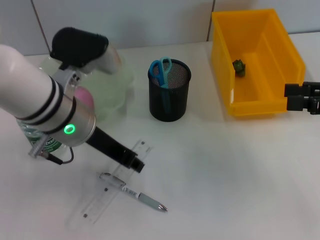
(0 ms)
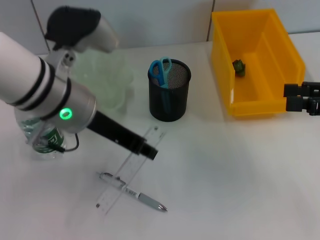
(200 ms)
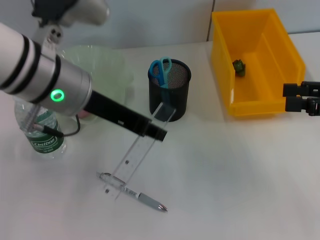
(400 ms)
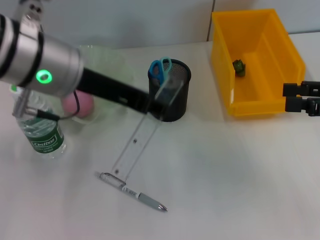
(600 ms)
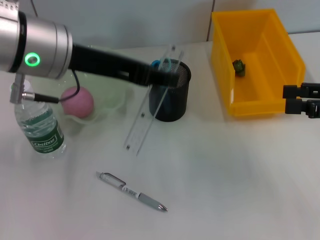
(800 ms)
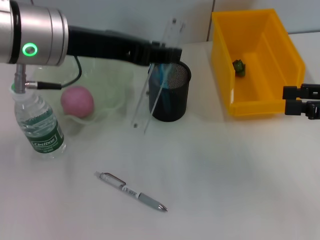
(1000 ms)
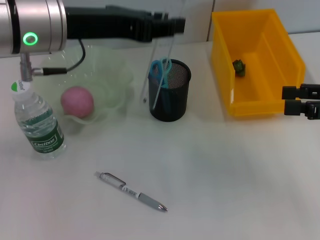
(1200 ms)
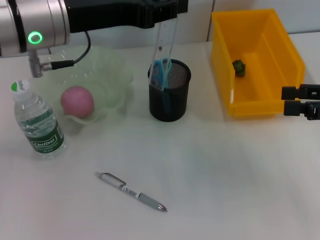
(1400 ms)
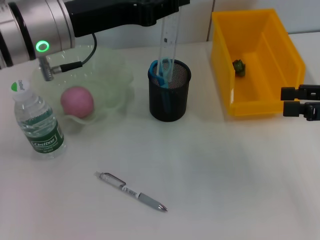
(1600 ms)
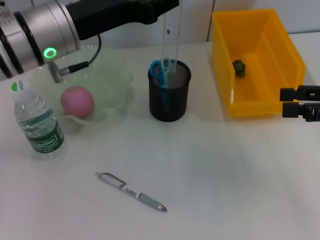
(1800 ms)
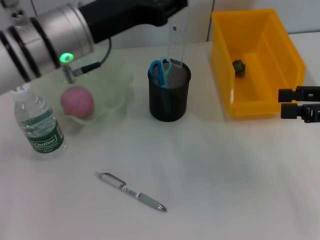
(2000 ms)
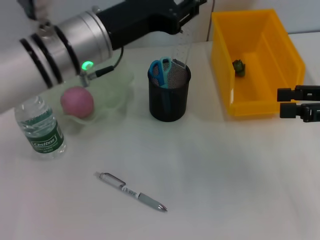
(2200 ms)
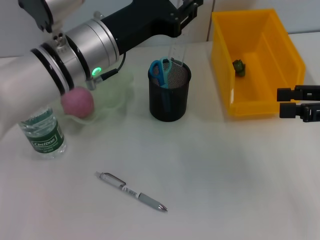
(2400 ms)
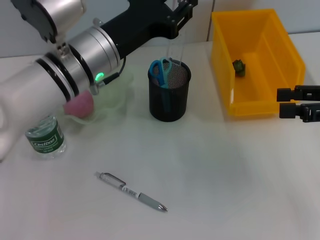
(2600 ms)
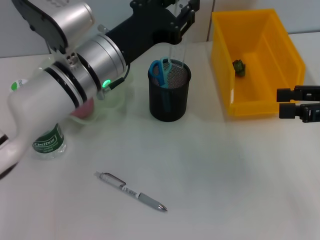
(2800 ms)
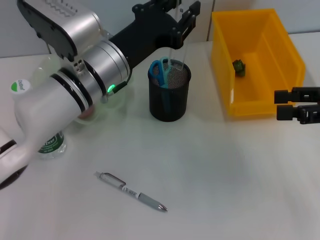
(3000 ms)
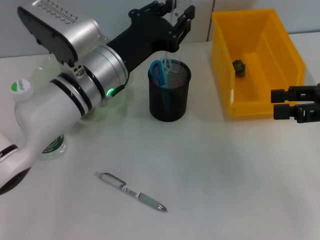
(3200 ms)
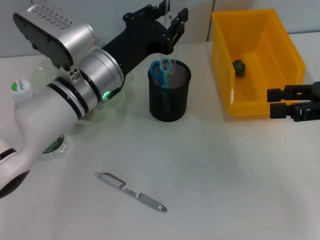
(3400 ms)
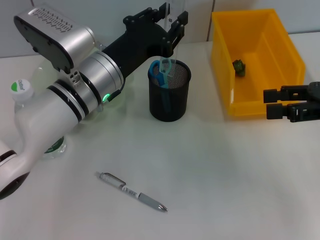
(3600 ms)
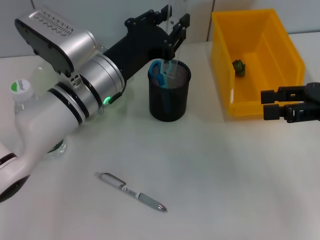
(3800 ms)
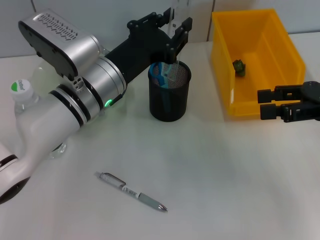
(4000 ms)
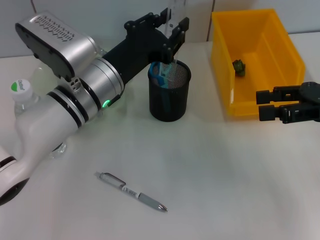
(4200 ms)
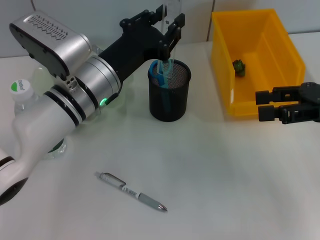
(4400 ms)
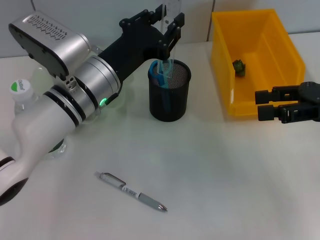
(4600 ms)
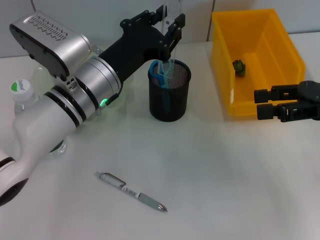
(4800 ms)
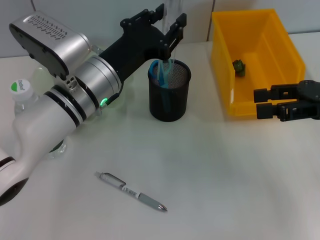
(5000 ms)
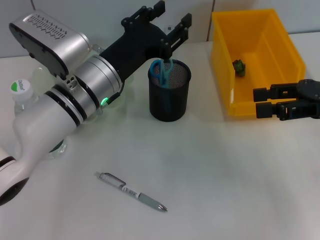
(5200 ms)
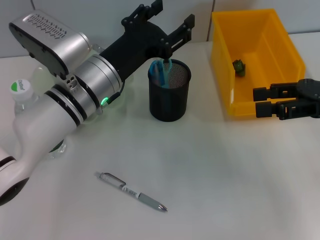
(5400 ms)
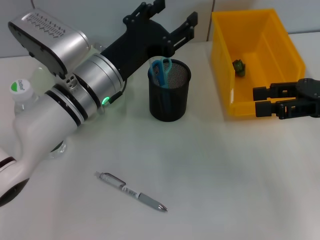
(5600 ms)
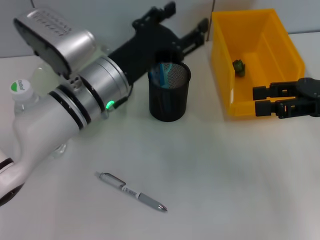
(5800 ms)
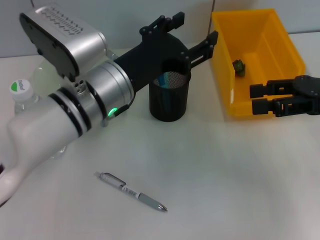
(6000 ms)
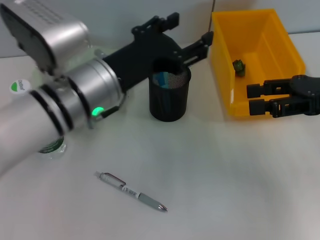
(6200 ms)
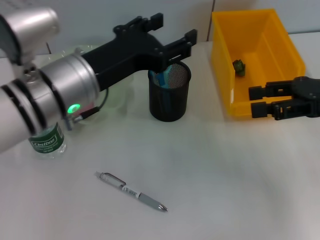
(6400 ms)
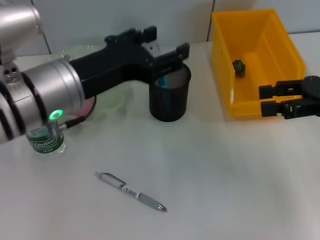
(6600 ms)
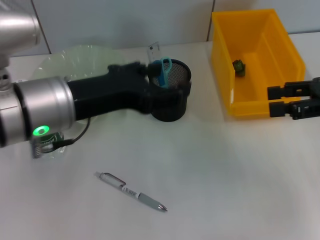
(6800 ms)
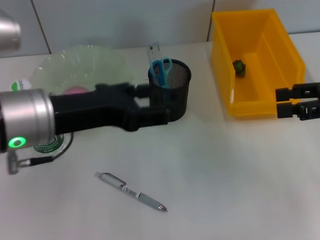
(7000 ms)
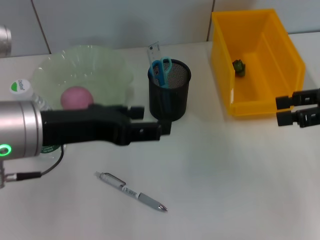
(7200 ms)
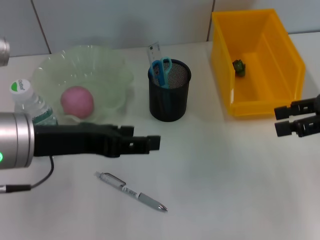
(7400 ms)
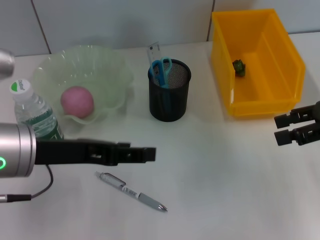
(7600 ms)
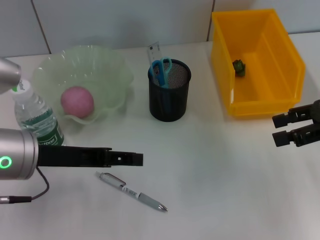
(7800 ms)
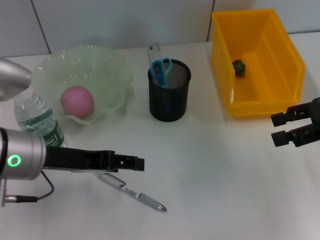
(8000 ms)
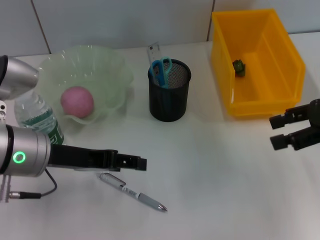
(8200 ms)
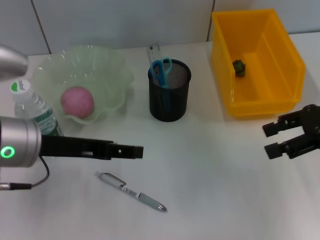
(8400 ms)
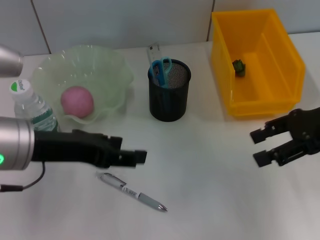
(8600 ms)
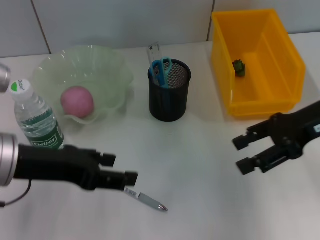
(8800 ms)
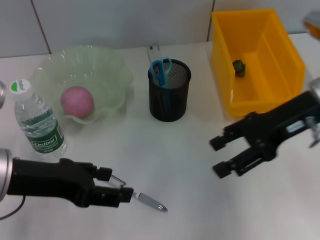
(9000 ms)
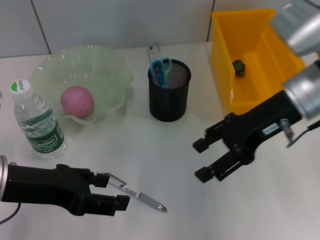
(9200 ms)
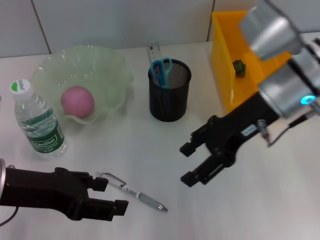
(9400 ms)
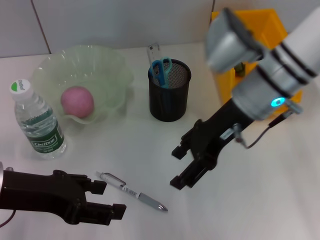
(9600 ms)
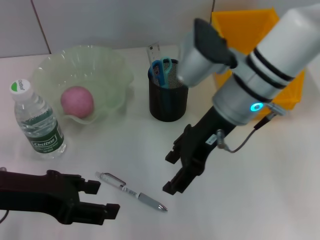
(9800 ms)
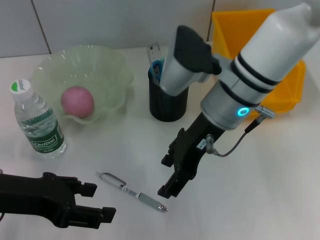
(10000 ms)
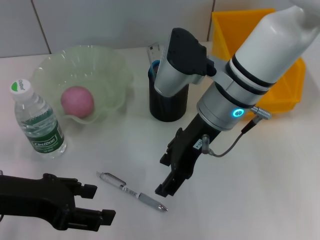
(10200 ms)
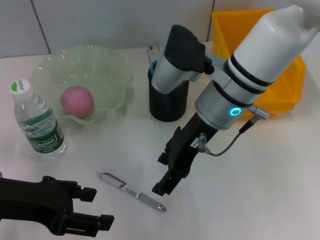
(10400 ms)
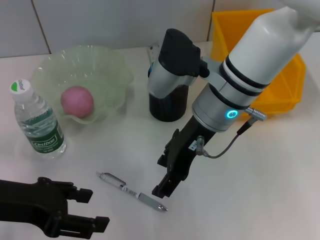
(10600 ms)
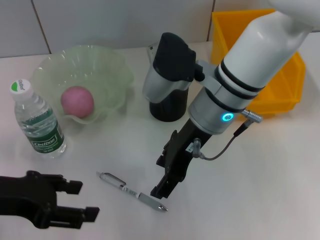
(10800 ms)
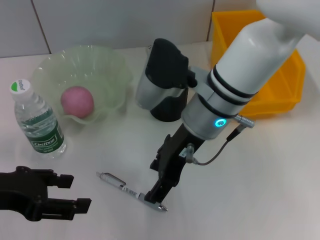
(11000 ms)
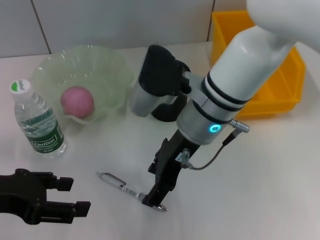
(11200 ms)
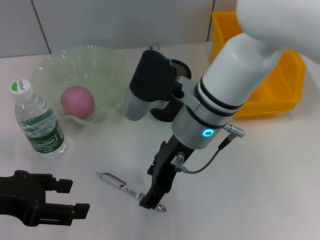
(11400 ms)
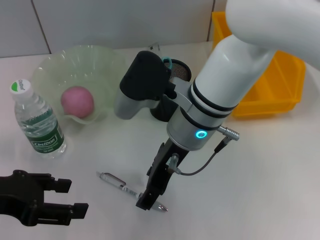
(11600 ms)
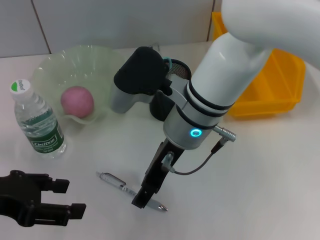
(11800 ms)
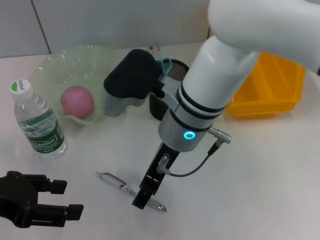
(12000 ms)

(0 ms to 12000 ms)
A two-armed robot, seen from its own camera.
Step, 0 ms - 5000 ms: Place the ruler into the pen holder with the left hand.
0 ms - 1600 ms: The left gripper is displaced upward by approximately 5 cm.
1600 ms - 3000 ms: The left gripper moves downward and to the right, some 10 cm.
3000 ms - 4400 ms: The grippers stay close to where they were, moving slightly.
4400 ms - 6000 ms: The left gripper opens up.
6000 ms - 7600 ms: The left gripper moves to the left and backward, roughly 10 cm.
7600 ms - 9000 ms: The right gripper heads to the left, covering some 10 cm.
9000 ms - 10400 ms: The right gripper moves to the left, about 15 cm.
10400 ms - 12000 ms: The right gripper moves to the left, some 5 cm.

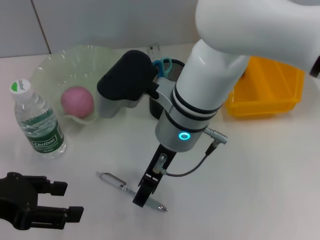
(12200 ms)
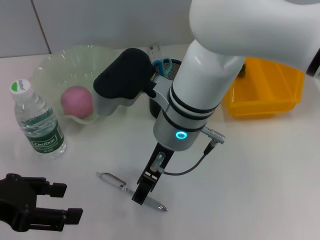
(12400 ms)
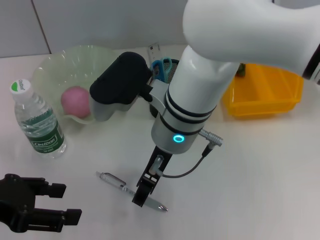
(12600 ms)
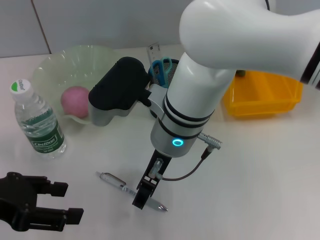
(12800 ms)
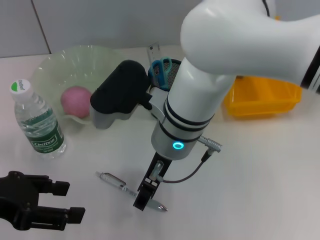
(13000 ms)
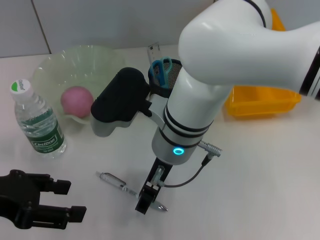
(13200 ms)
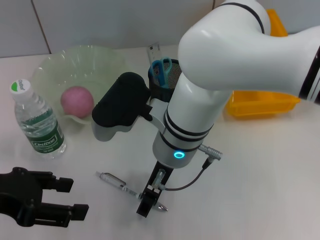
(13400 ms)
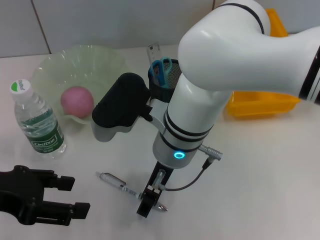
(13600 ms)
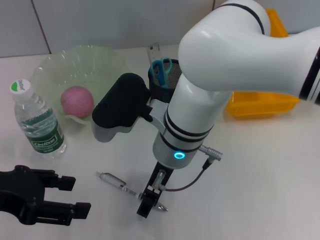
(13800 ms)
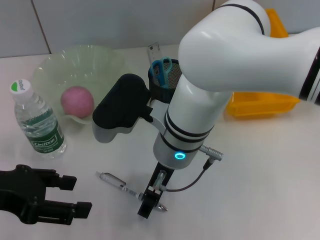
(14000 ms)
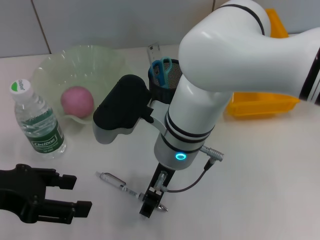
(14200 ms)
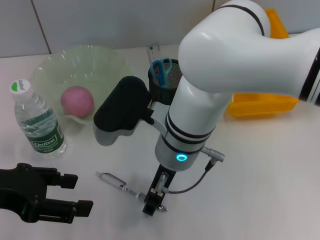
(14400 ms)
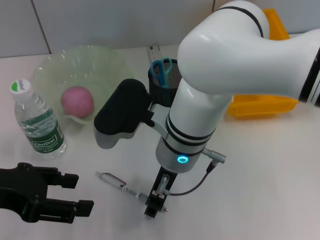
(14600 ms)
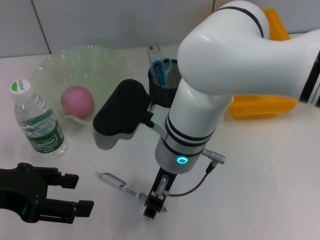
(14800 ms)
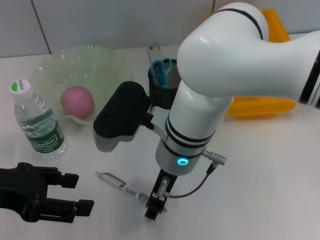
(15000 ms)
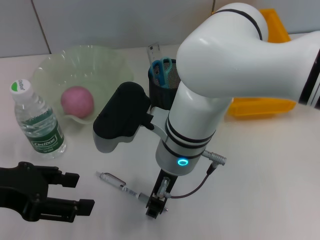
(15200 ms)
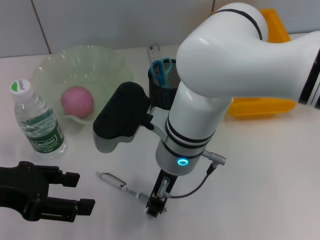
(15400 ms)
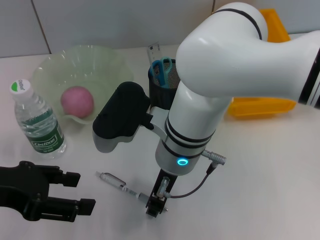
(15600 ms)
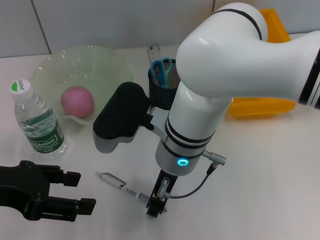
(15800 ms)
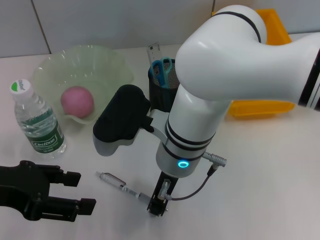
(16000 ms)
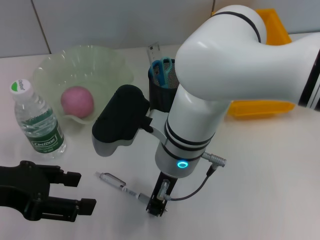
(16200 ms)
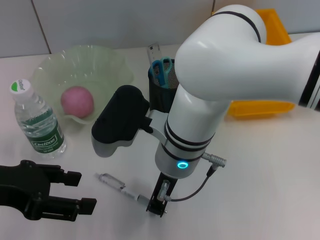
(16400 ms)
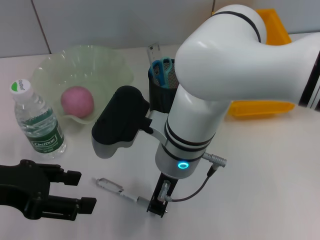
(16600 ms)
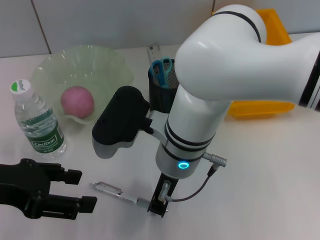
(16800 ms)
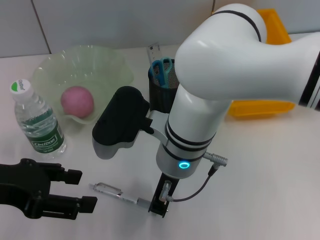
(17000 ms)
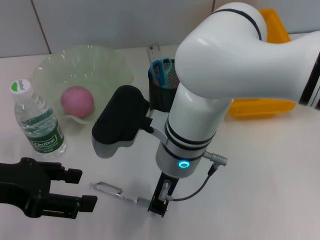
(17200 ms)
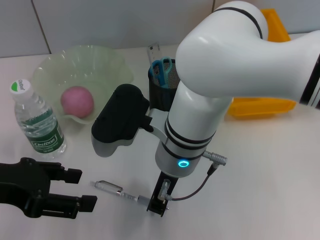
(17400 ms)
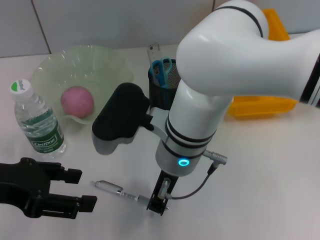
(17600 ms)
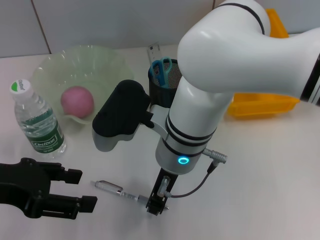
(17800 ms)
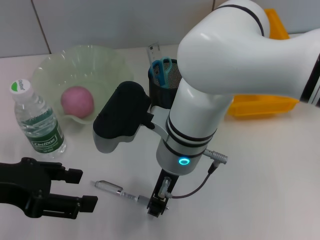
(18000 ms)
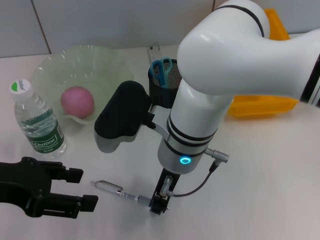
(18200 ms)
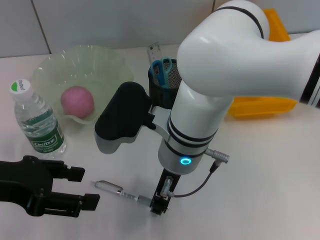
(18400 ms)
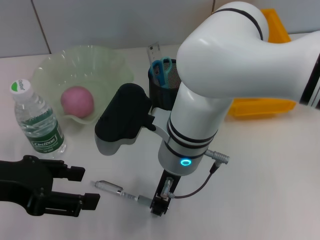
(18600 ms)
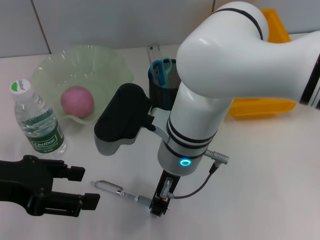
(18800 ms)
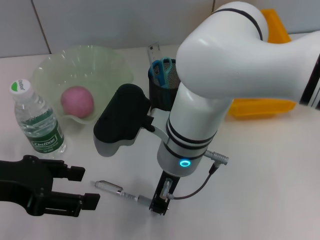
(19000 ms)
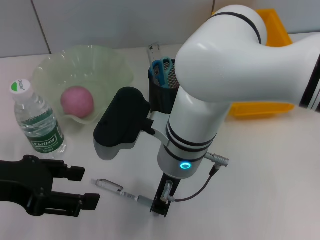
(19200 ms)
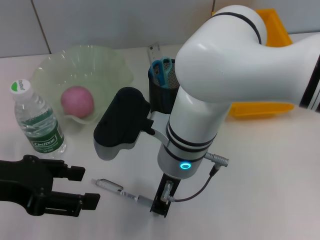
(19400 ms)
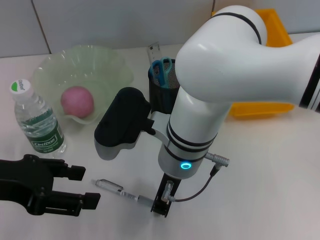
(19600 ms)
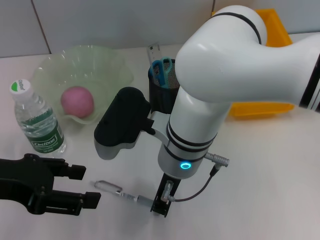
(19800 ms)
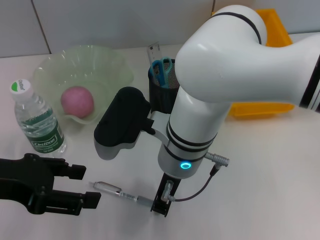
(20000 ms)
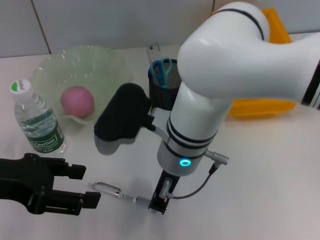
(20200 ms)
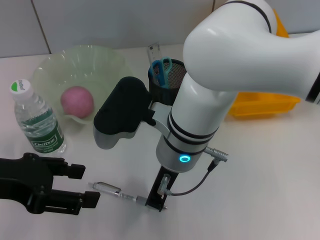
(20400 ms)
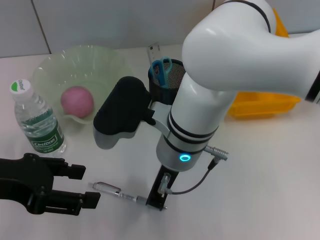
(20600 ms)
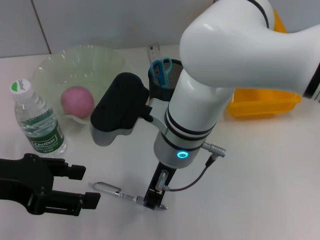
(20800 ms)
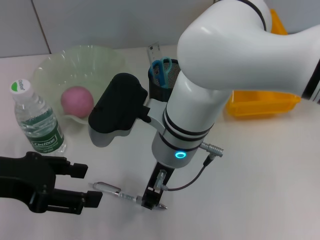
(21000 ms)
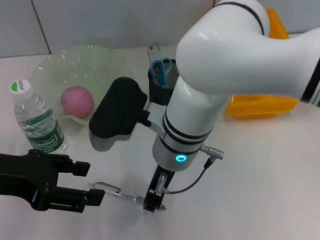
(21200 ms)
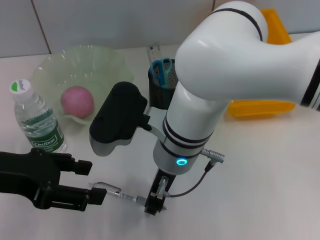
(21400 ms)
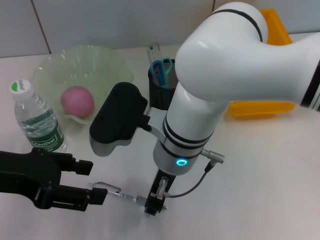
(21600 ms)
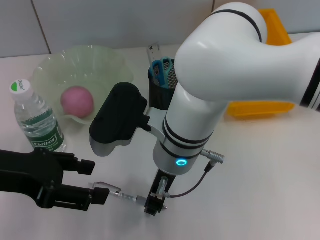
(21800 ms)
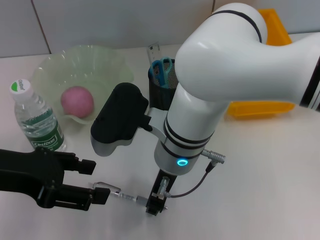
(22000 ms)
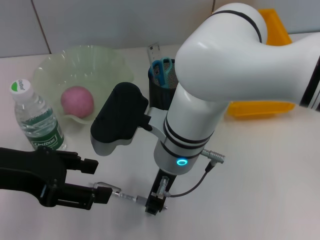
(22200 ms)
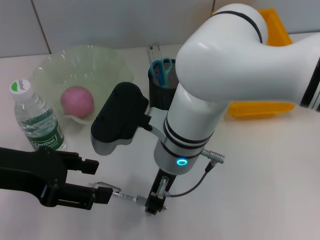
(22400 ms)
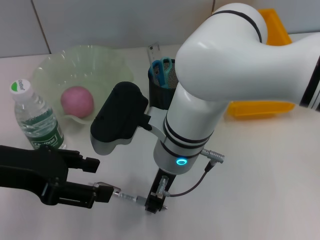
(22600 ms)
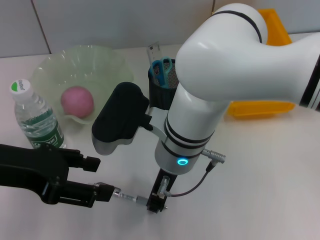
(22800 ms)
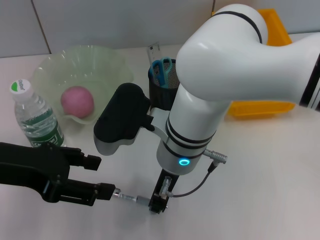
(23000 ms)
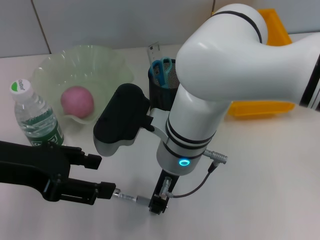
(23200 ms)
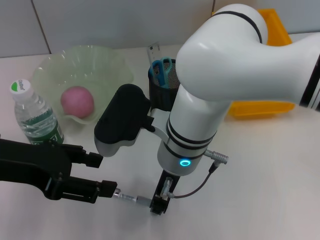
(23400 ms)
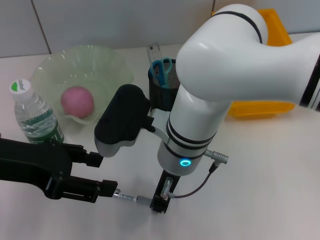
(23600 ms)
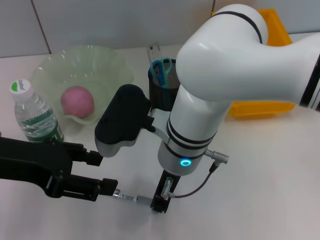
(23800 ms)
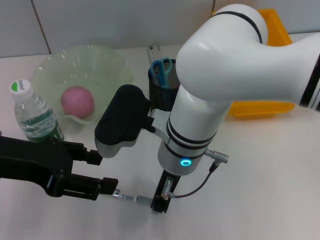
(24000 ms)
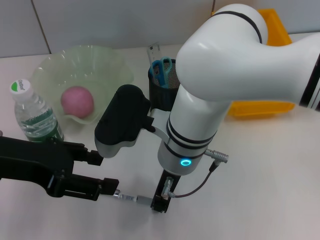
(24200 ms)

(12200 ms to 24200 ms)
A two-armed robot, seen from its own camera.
13800 ms - 15200 ms: The two grippers keep their place.
15200 ms - 16600 ms: The right gripper closes its fingers.
16600 ms - 19800 ms: The two grippers keep their place.
19800 ms - 21200 ms: The grippers make only small movements.
21200 ms - 22600 ms: Neither gripper changes place.
22600 ms - 24200 ms: Neither gripper changes place.
